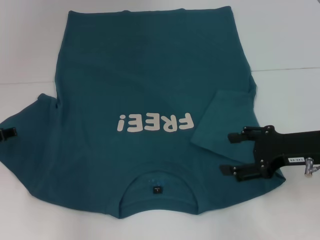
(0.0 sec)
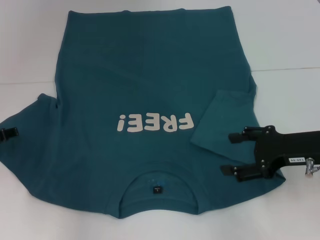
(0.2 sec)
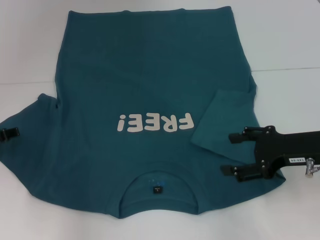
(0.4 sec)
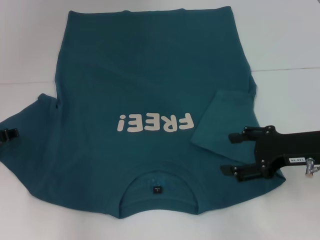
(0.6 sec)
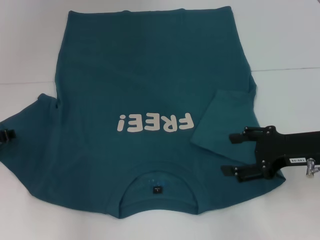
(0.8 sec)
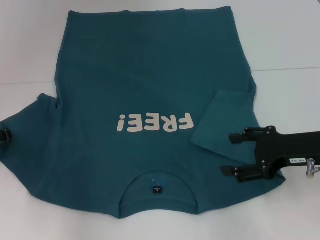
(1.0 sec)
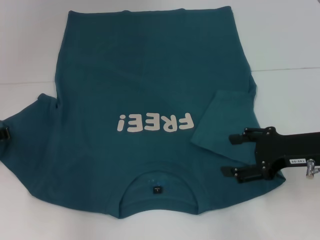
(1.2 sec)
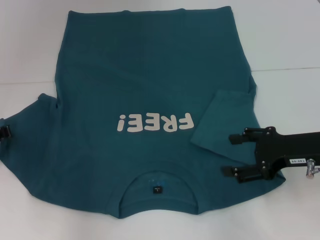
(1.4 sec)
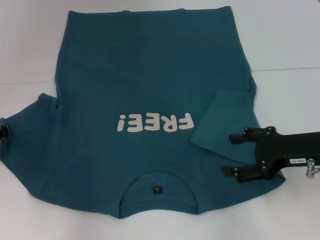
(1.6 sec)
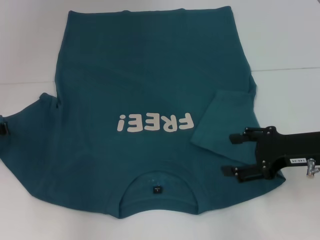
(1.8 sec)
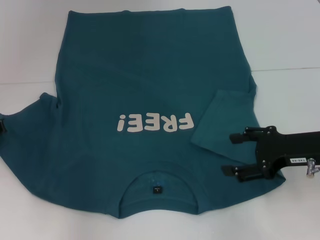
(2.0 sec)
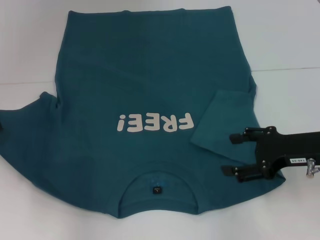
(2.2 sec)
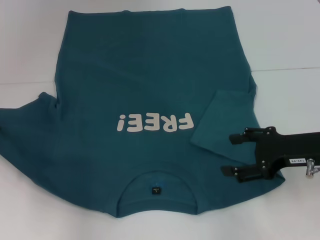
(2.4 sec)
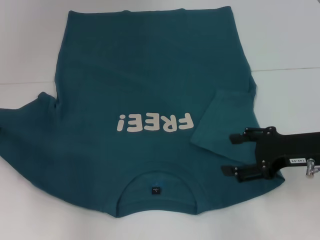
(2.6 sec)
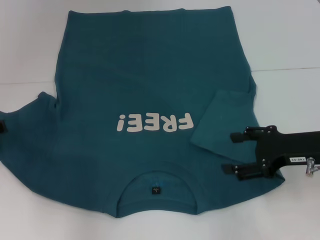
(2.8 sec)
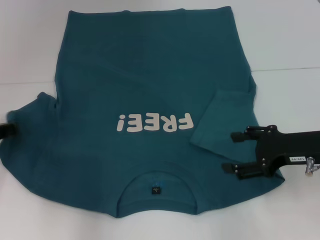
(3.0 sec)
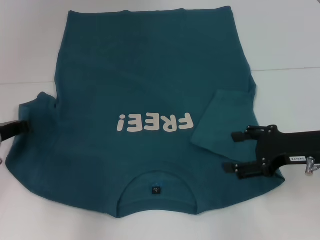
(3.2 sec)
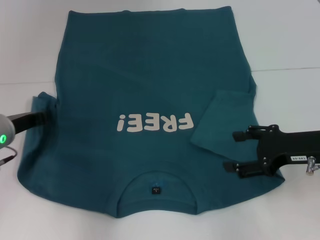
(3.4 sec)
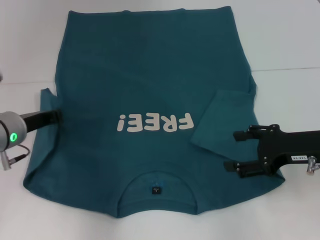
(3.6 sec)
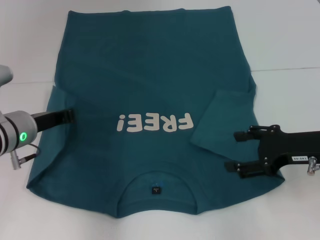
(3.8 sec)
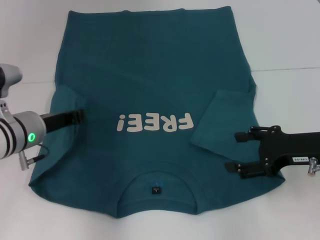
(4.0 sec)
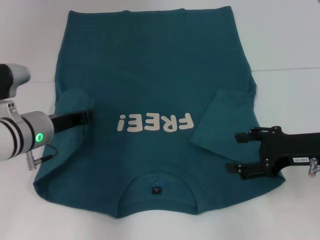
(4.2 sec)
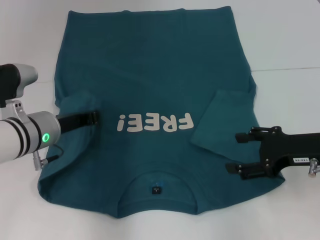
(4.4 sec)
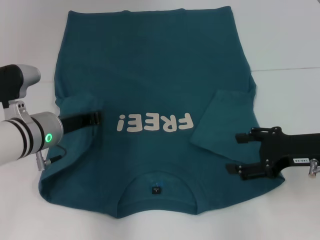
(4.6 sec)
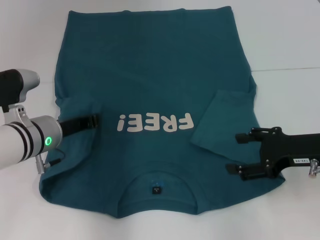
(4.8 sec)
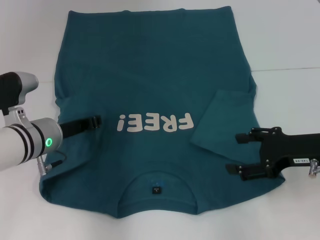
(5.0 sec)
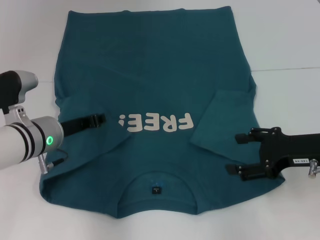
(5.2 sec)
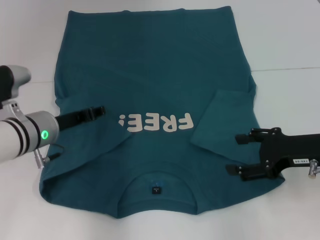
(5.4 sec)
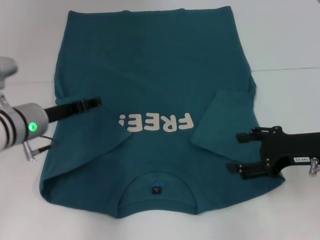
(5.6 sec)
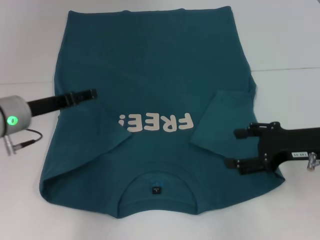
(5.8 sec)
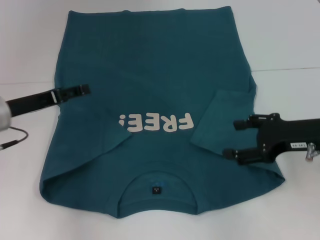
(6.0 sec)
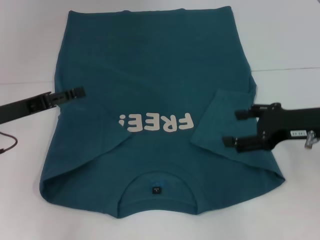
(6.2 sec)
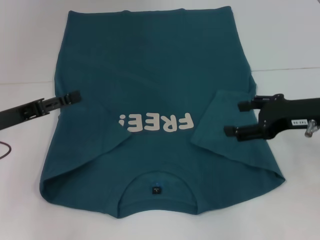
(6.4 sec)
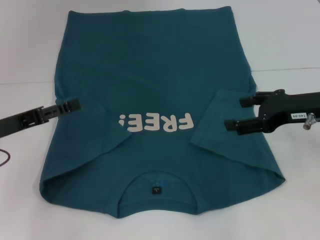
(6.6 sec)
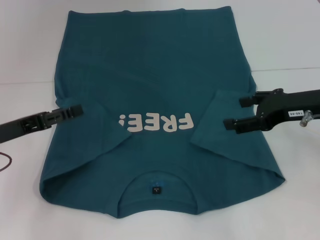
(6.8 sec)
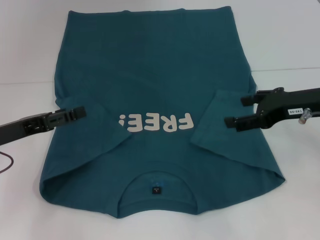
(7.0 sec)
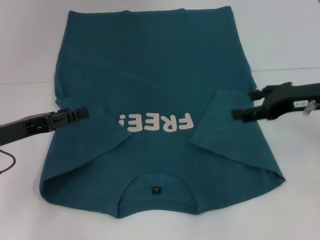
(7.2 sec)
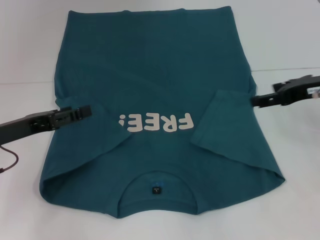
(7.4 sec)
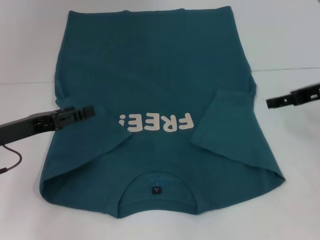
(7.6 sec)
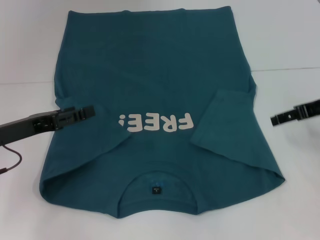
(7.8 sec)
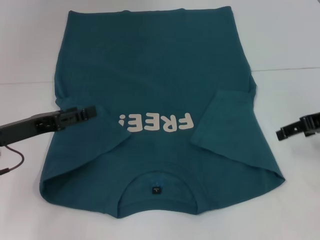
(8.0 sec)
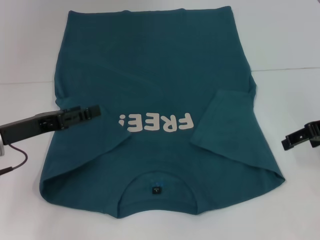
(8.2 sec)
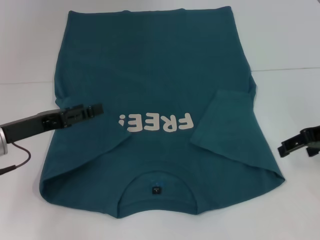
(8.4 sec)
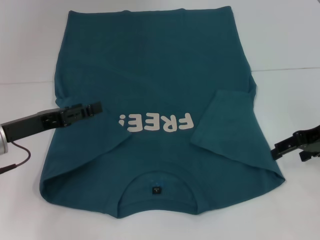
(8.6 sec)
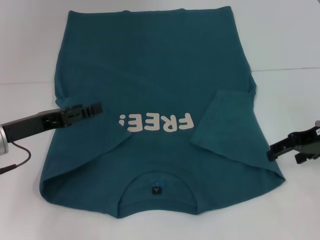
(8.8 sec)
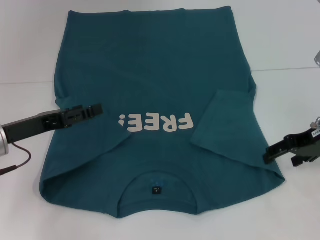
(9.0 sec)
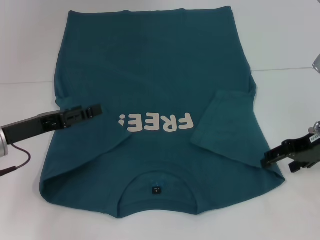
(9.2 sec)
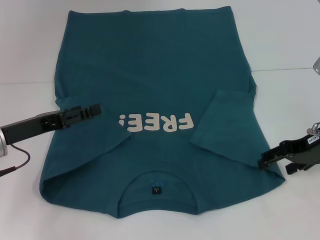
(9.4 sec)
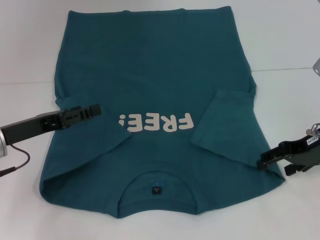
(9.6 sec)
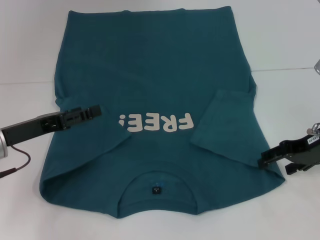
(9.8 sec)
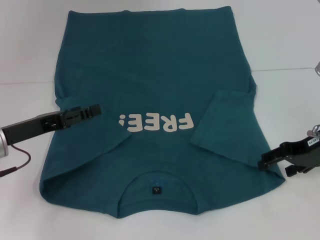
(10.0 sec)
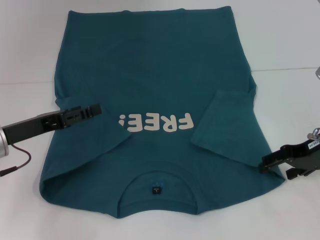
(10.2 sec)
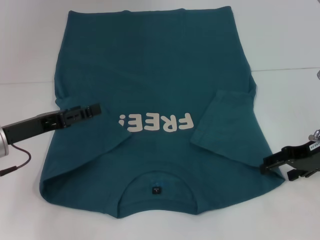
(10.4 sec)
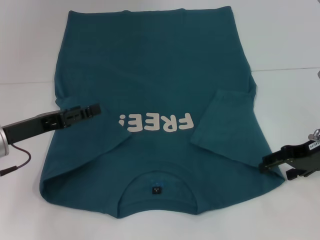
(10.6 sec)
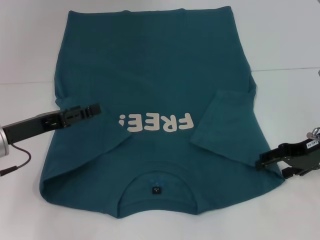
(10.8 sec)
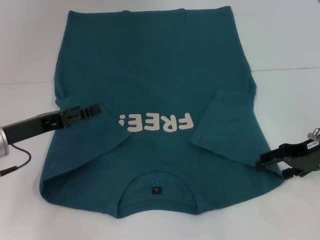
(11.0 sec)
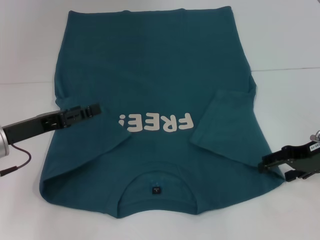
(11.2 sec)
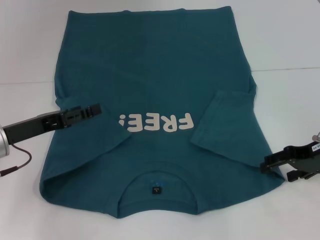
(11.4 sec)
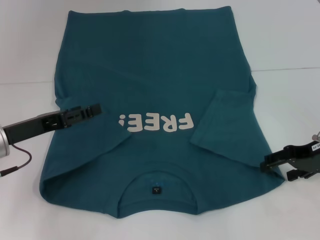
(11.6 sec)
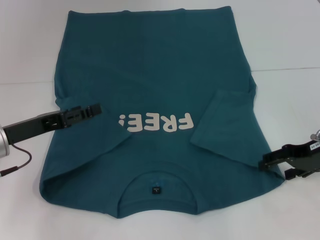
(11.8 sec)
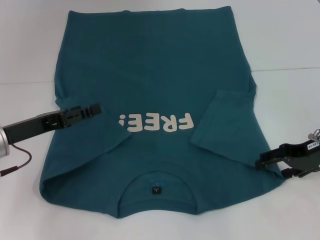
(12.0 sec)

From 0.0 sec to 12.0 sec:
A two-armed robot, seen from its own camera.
Step, from 0.0 sec to 6.0 sec: Fold the bottom left sleeve with your left hand.
From 1.6 sec to 3.0 sec: The grippers stay close to where they were, moving slightly.
From 3.0 sec to 4.4 sec: The left gripper travels to the right by about 10 cm.
From 4.4 sec to 6.0 sec: The left gripper travels to the left by roughly 5 cm, and opens up.
From 6.0 sec to 7.6 sec: The right gripper travels forward by about 5 cm.
From 9.0 sec to 12.0 sec: The grippers stay close to where they were, moving slightly.

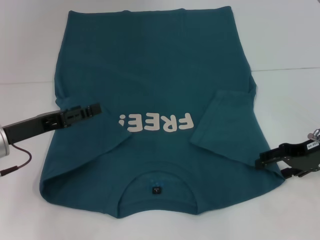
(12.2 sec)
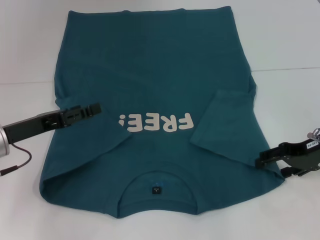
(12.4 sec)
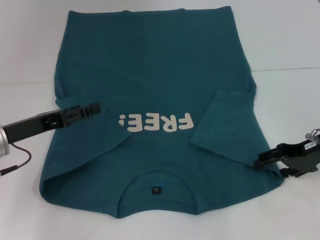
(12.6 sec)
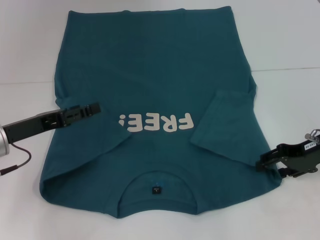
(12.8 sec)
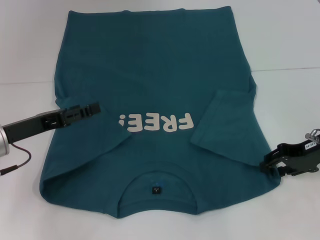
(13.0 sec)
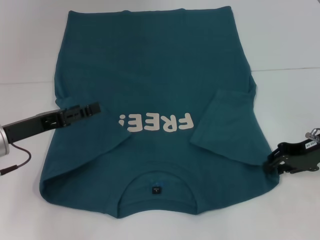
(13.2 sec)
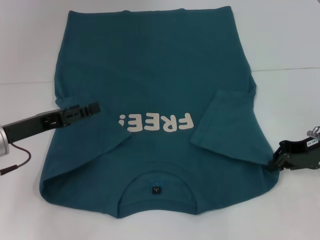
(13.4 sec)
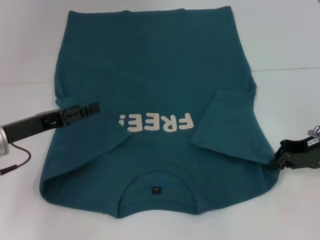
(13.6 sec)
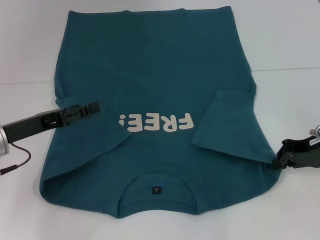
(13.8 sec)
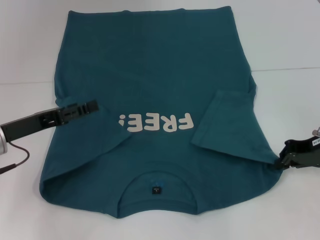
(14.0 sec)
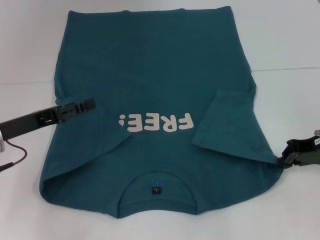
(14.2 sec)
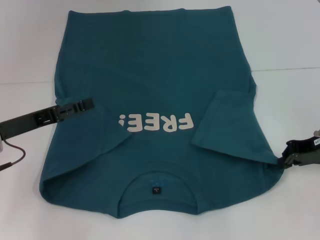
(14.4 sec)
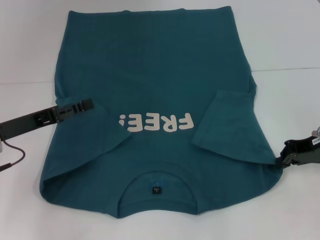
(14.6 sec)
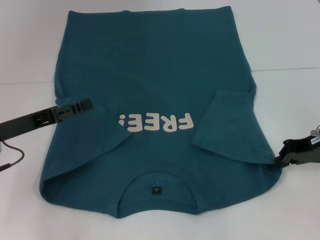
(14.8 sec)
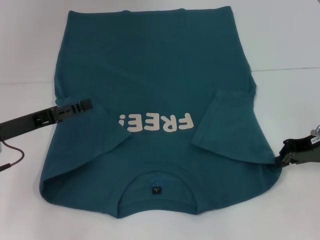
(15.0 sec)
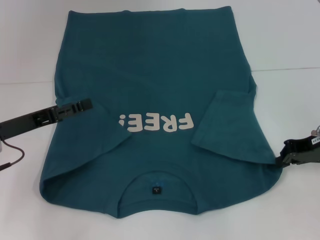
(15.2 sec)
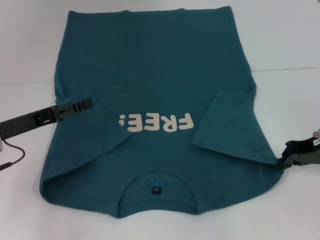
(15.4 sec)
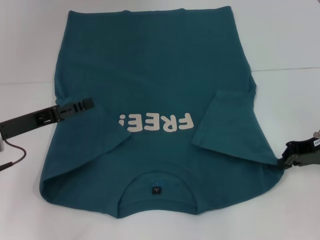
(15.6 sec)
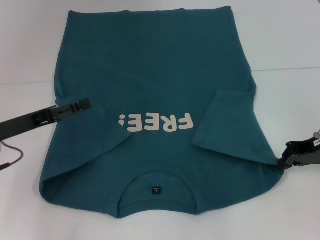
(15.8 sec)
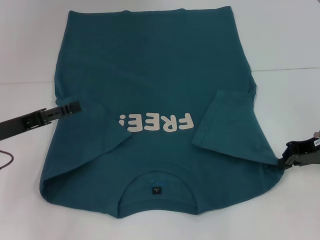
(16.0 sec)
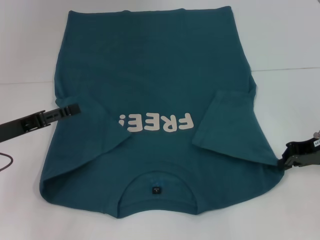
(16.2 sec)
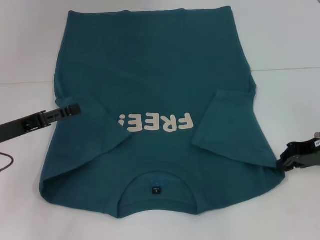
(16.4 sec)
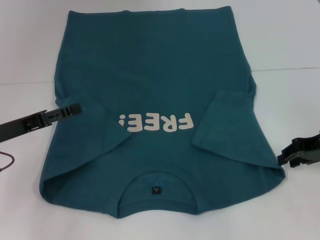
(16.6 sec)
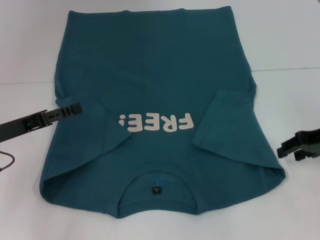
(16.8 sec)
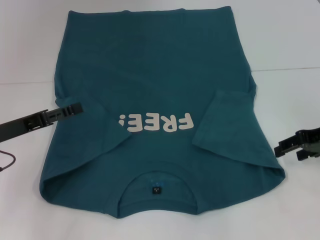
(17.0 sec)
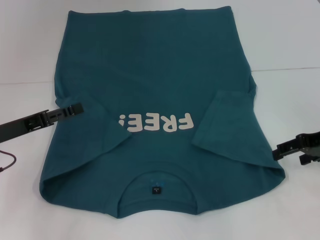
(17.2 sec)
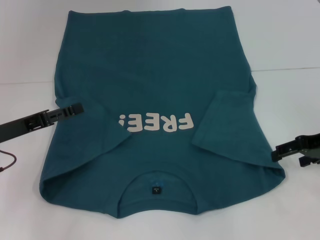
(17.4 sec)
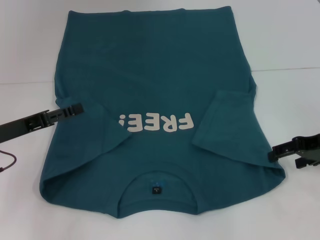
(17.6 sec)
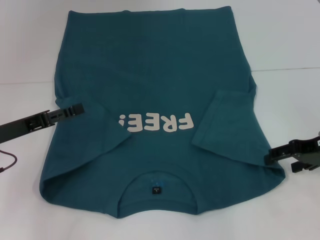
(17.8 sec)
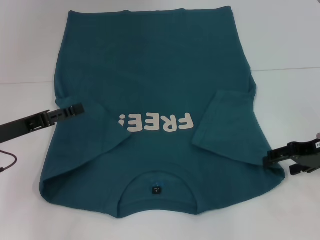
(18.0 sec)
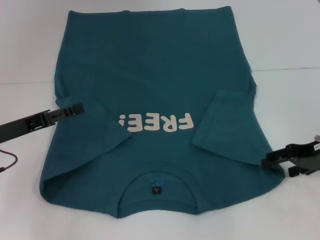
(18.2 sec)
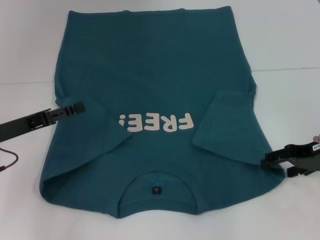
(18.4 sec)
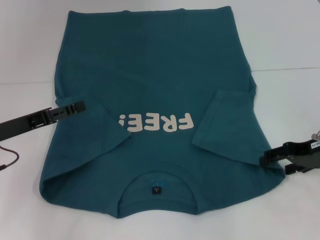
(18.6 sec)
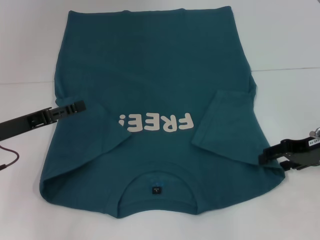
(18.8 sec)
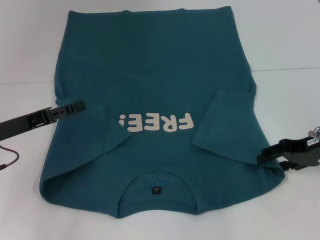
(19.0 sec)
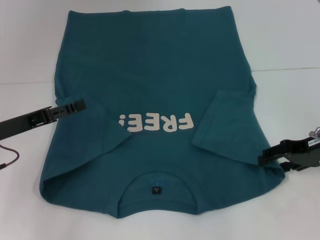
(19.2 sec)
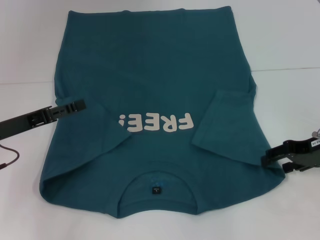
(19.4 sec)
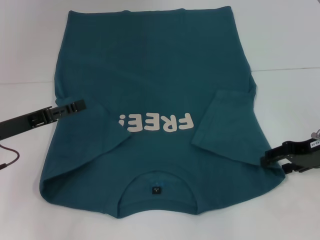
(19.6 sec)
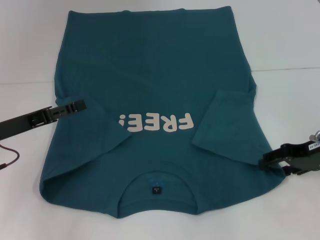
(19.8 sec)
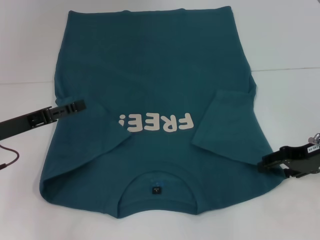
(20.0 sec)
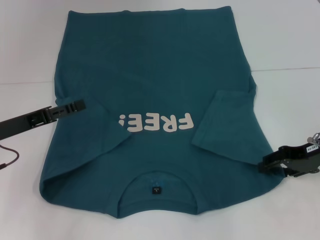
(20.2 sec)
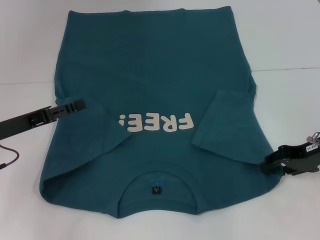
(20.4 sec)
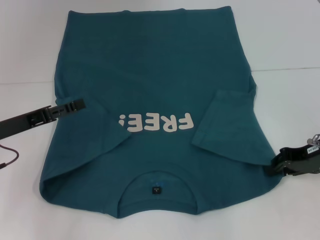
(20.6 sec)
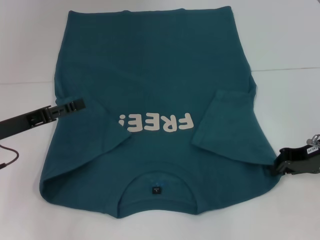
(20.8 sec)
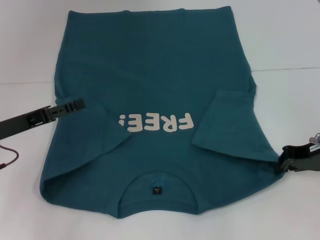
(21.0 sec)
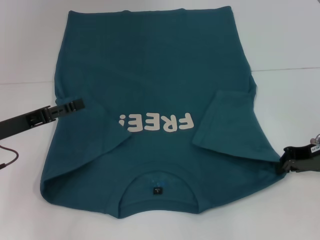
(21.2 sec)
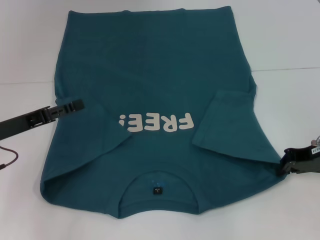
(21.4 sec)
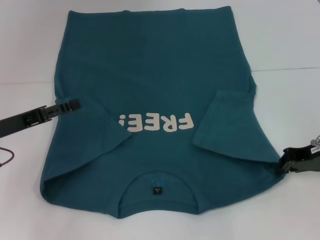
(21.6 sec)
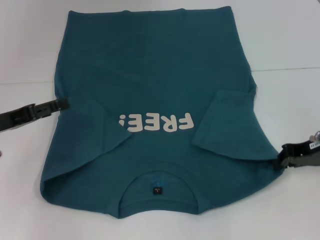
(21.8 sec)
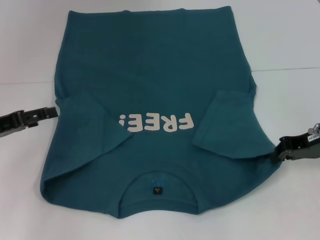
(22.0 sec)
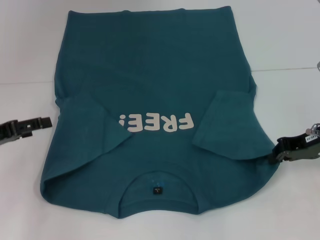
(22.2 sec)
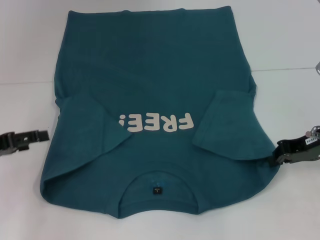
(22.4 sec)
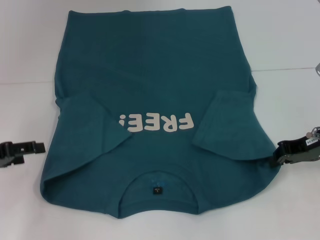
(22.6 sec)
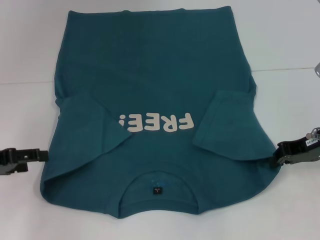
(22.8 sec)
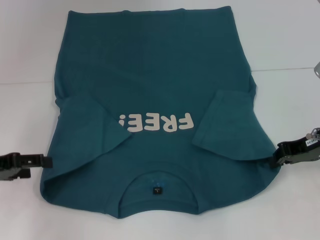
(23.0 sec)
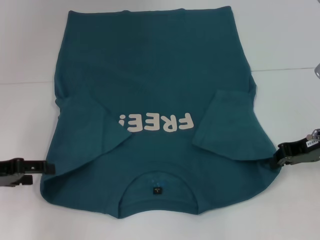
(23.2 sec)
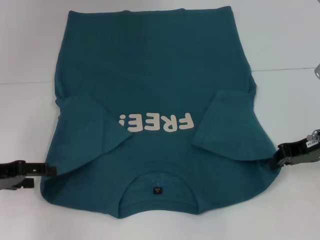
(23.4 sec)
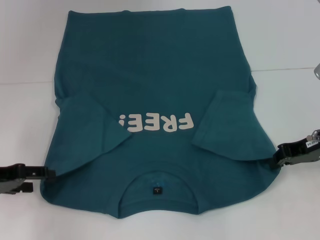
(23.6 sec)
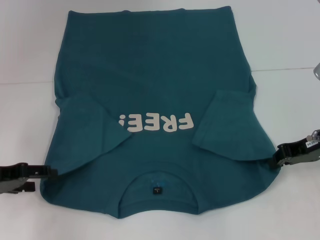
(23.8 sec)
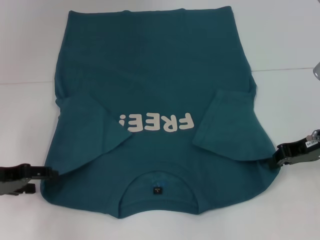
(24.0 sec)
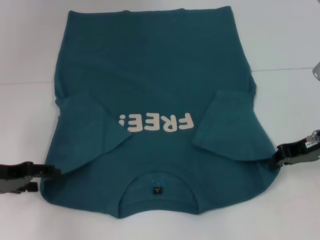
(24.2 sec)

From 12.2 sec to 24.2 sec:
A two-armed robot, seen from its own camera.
Step, from 12.2 sec to 21.6 sec: Grab the bottom right corner with your right hand.
From 12.2 sec to 13.8 sec: The right gripper closes.
From 13.8 sec to 16.6 sec: The grippers move only a little.
From 16.6 sec to 18.2 sec: The right gripper opens up.
From 18.2 sec to 19.8 sec: Both grippers stay put.
From 19.8 sec to 21.2 sec: The right gripper closes its fingers.
From 21.2 sec to 22.6 sec: The left gripper heads to the left, covering some 5 cm.
From 22.6 sec to 24.2 sec: The grippers stay close to where they were, moving slightly.
